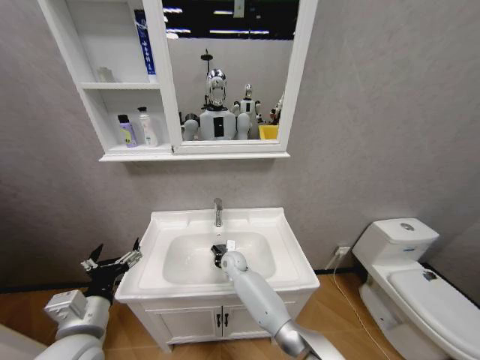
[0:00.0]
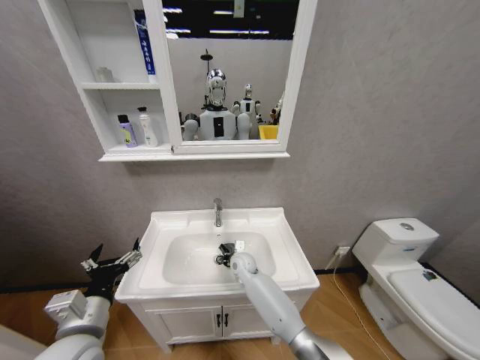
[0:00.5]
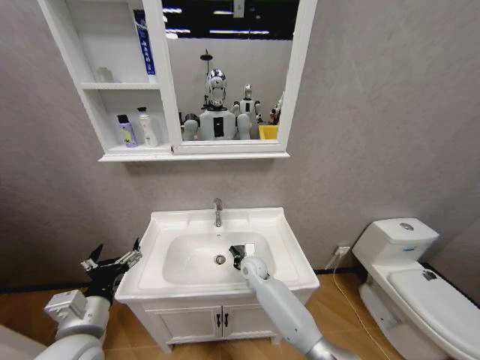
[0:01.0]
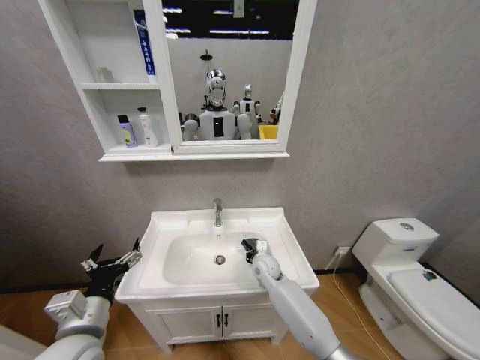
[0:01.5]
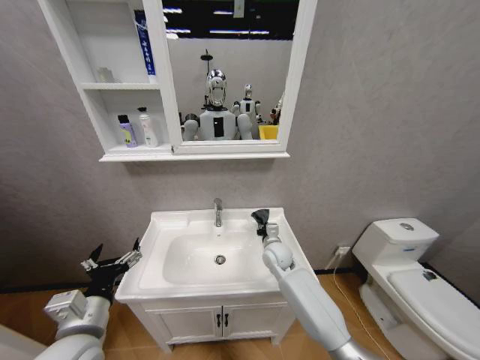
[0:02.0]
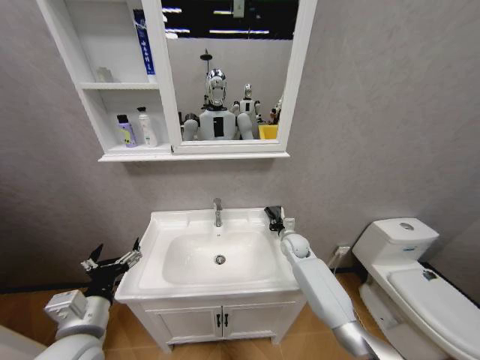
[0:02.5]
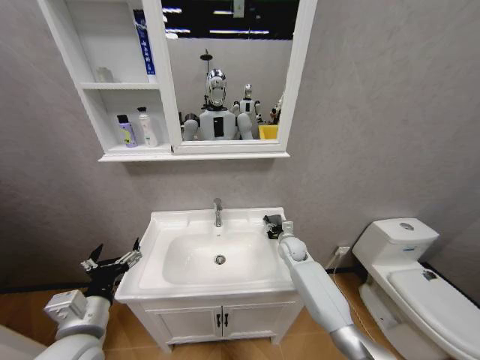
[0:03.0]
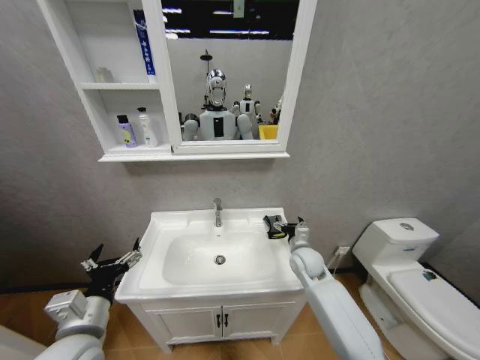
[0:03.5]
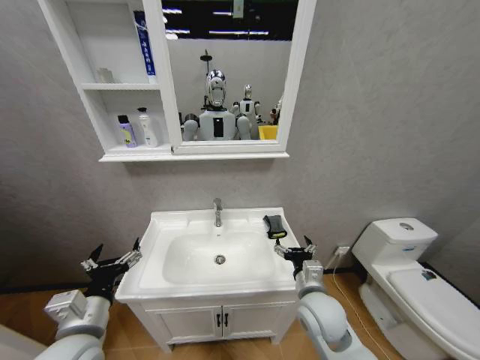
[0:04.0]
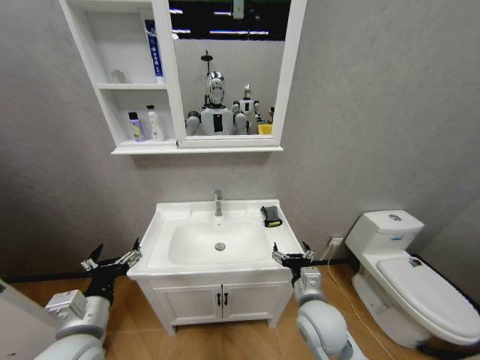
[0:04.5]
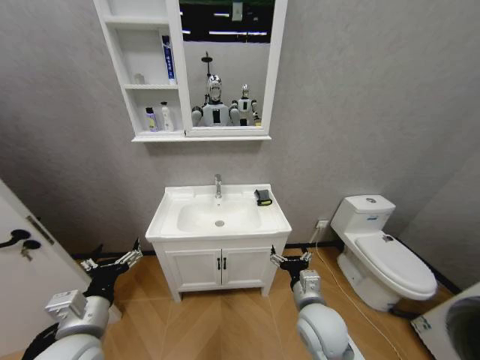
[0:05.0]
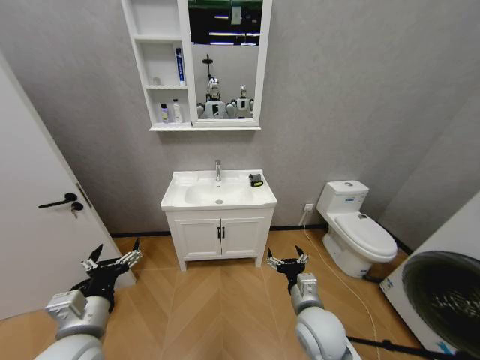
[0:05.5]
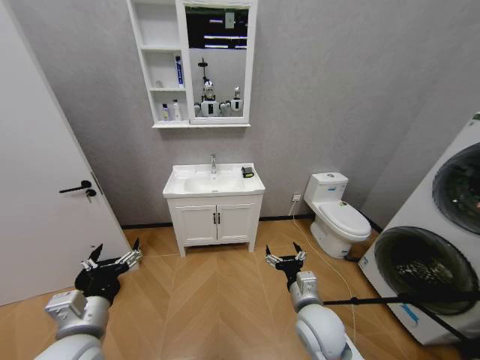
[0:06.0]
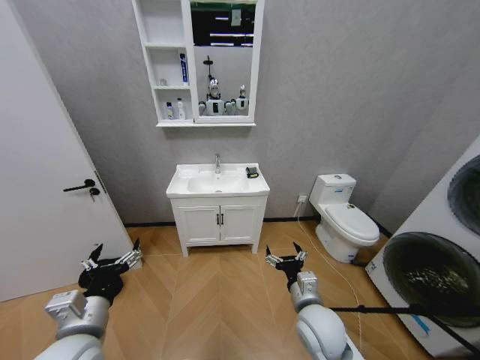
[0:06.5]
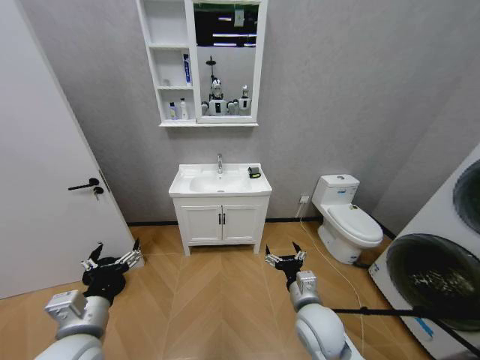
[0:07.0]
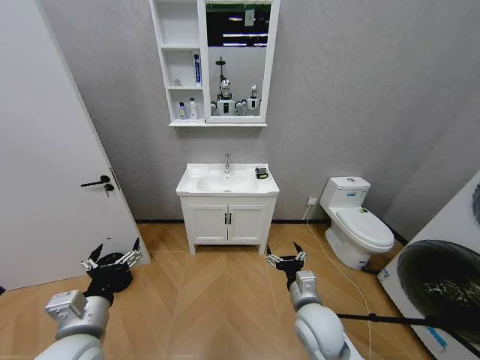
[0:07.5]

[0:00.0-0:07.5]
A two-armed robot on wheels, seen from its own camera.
Task of the whole recording: Move facial cleanser and shampoo from washbasin to cabinet, then wipe washbasin with towel.
0:00.0 to 0:02.0: The right gripper shifts some 15 cm to the right and upward.
0:02.0 to 0:04.0: The right gripper goes some 20 cm backward, and opens up.

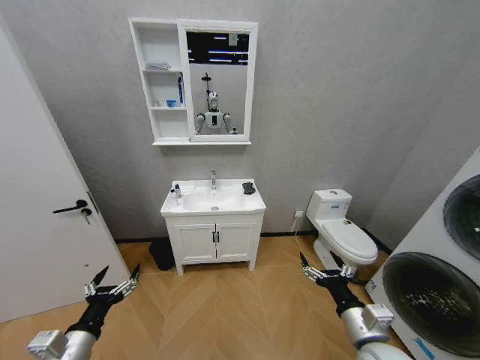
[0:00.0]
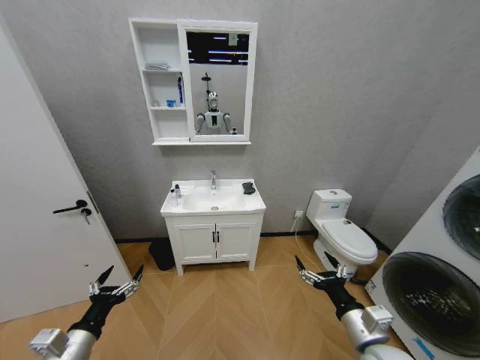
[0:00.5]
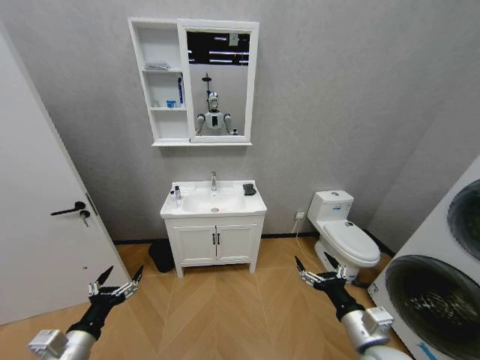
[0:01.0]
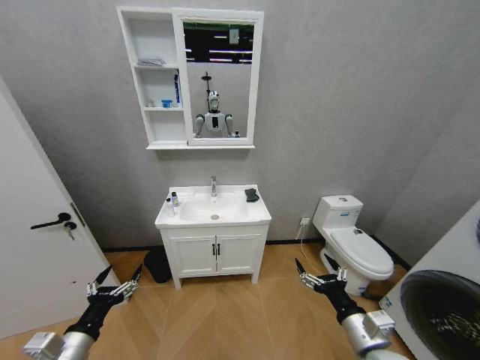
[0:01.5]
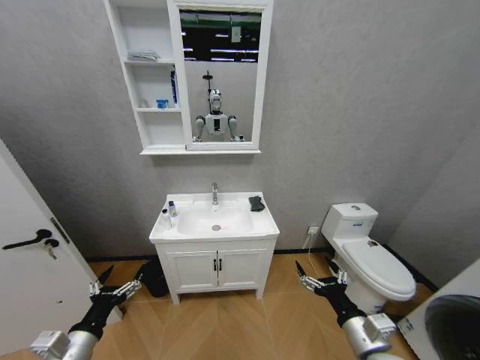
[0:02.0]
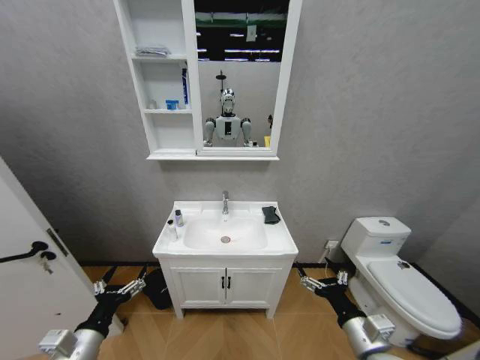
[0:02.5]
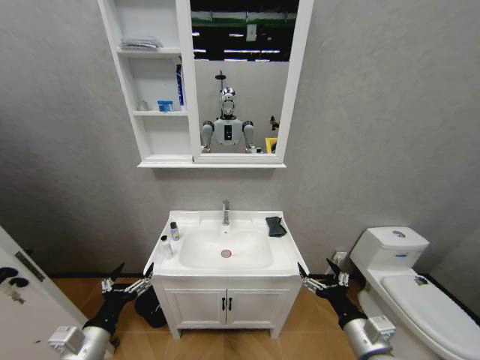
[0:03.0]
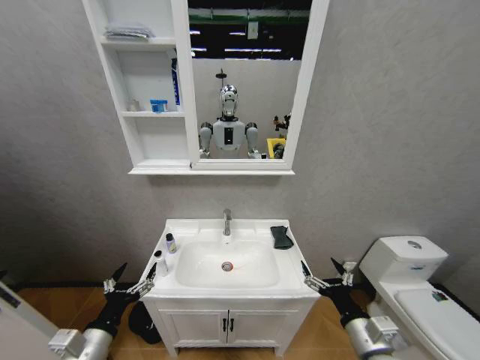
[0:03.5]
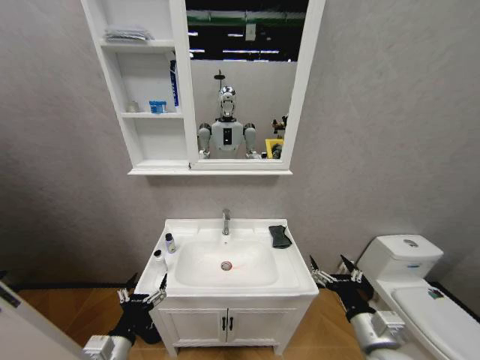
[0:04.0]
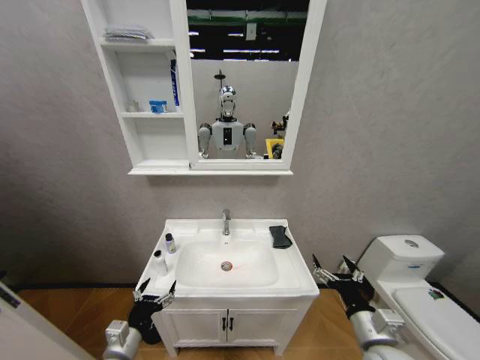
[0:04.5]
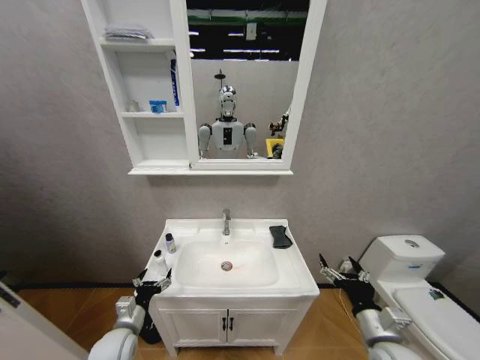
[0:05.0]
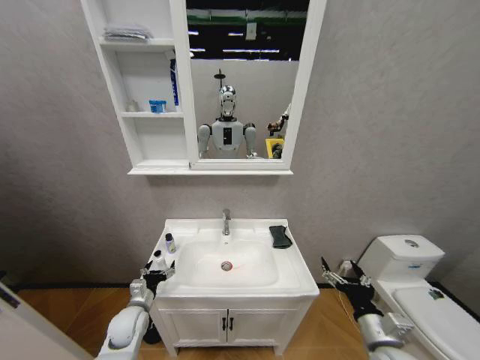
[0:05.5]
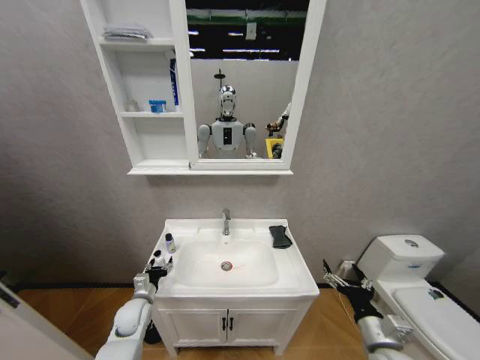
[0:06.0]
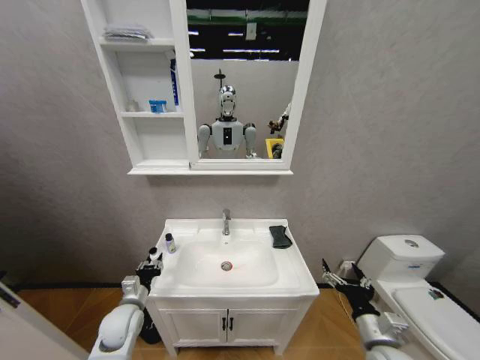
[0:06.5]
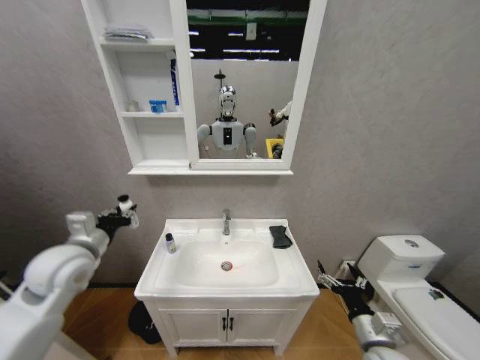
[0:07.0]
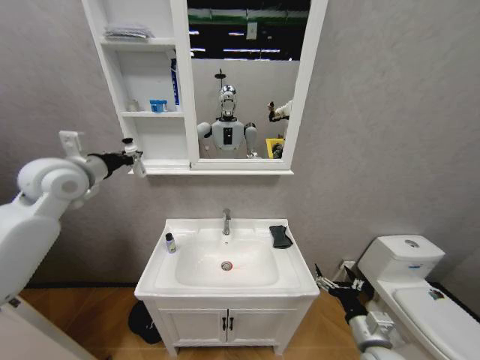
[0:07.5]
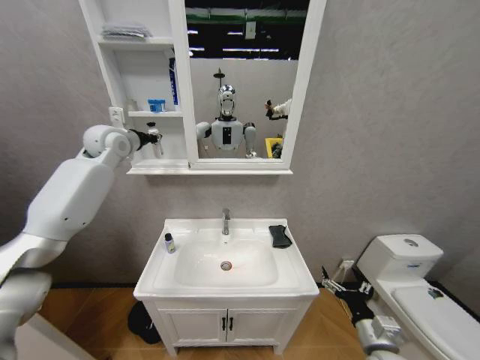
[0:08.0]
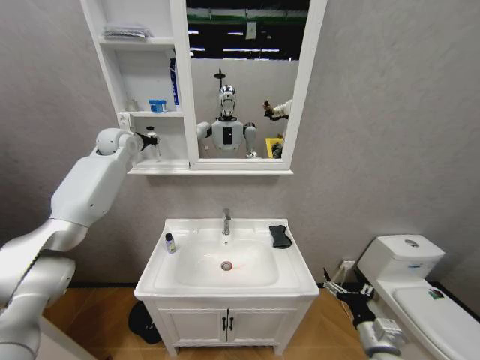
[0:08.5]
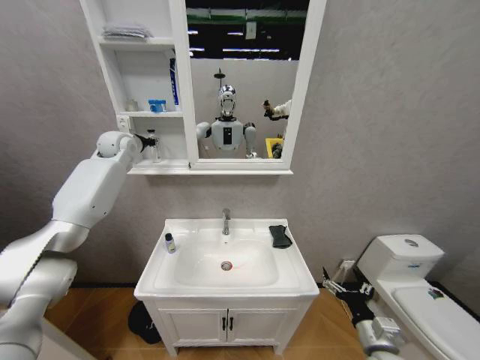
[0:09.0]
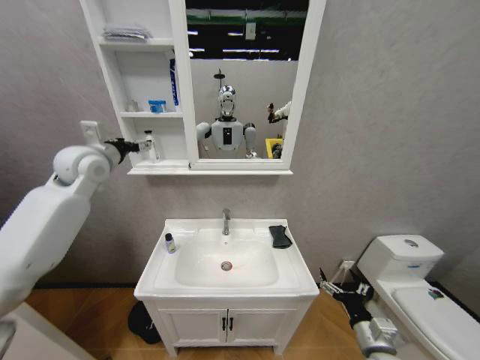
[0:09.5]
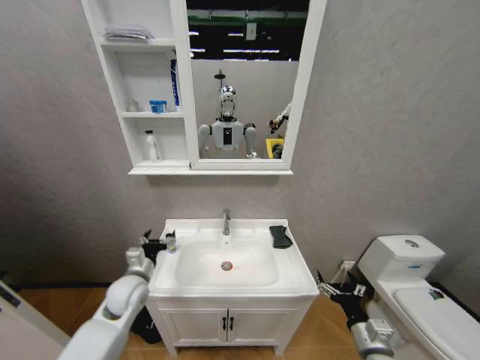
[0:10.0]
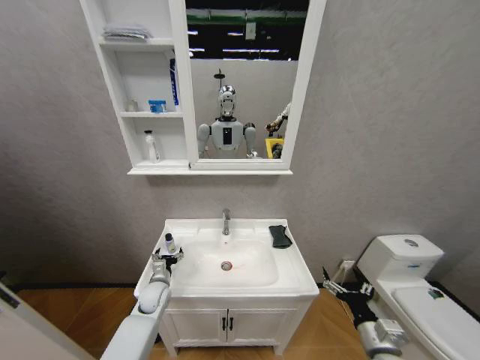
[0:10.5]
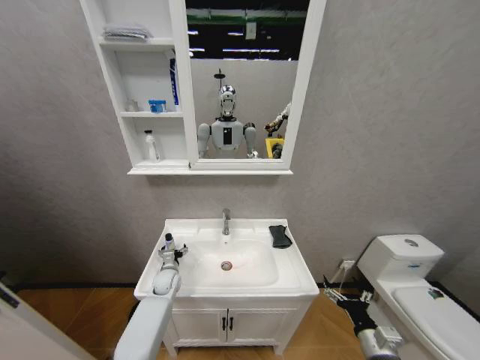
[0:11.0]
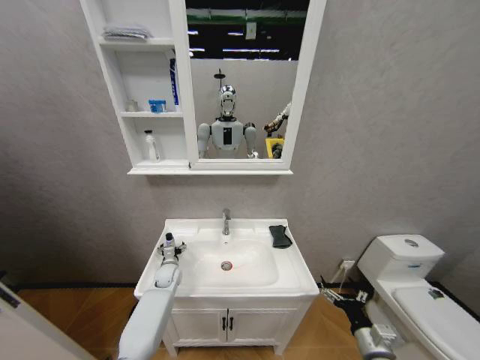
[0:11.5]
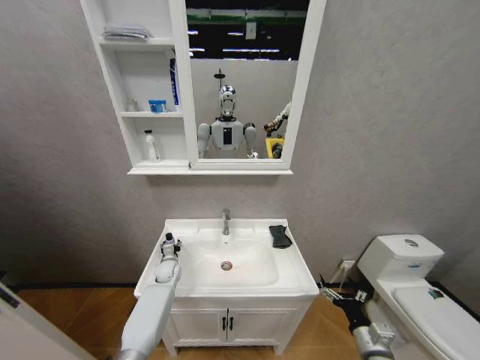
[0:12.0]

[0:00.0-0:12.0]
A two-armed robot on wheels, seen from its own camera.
Task of the whole recording: Move facial cleanser and shampoo from washbasin to cabinet, then wipe washbasin with towel.
0:02.0 to 0:04.0: The left gripper goes roughly 5 cm to the right.
0:04.0 to 0:06.0: The right gripper moves downward, some 5 cm. Meanwhile the left gripper heads forward, covering approximately 20 cm.
0:06.0 to 0:08.0: The left gripper is displaced upward by some 50 cm, and closes up.
0:08.0 to 0:10.0: The left gripper goes approximately 40 cm downward and backward, and opens.
0:10.0 to 0:12.0: The left gripper moves forward and downward, some 20 cm, and closes its fingers.

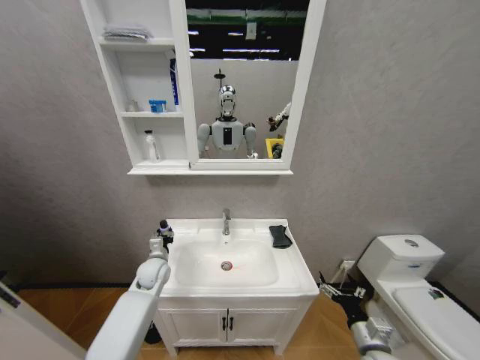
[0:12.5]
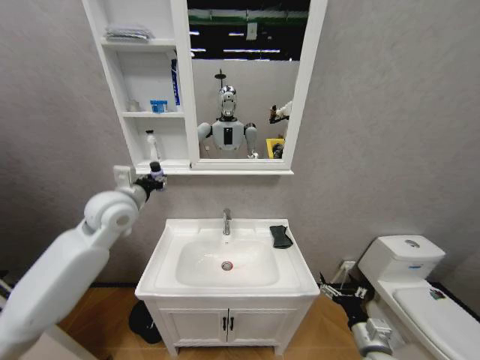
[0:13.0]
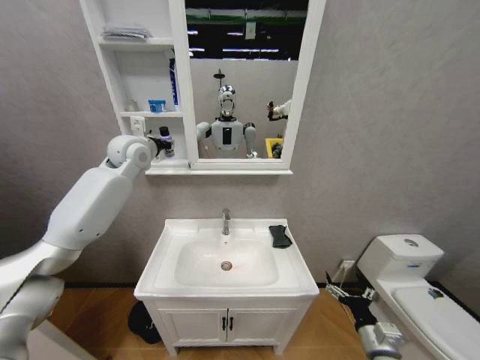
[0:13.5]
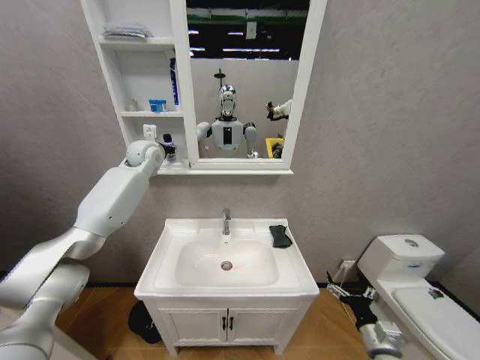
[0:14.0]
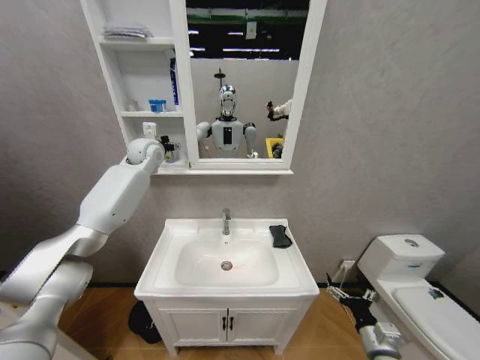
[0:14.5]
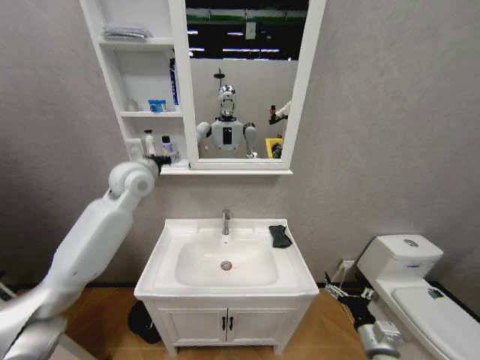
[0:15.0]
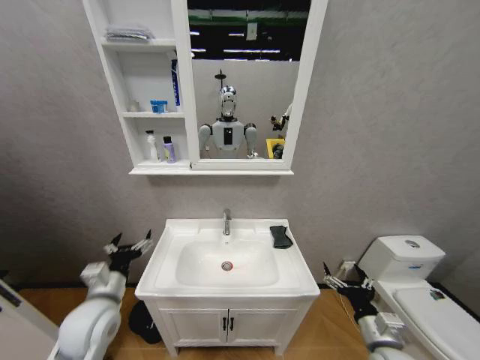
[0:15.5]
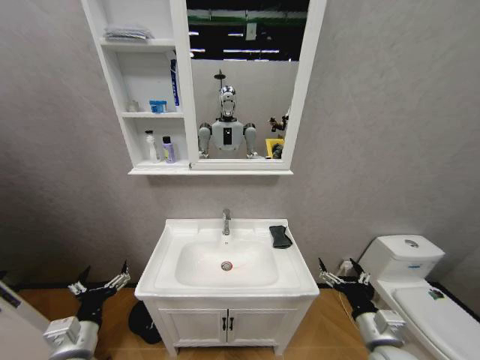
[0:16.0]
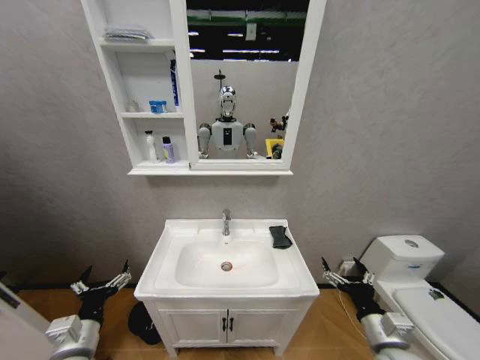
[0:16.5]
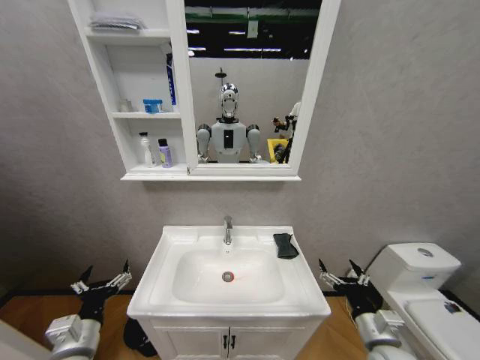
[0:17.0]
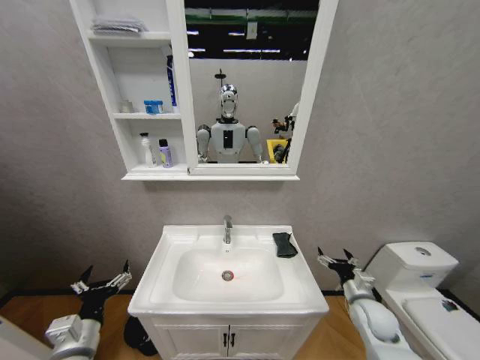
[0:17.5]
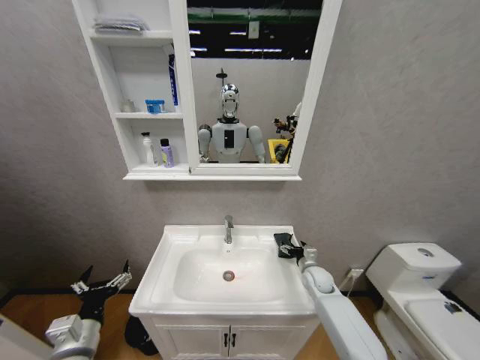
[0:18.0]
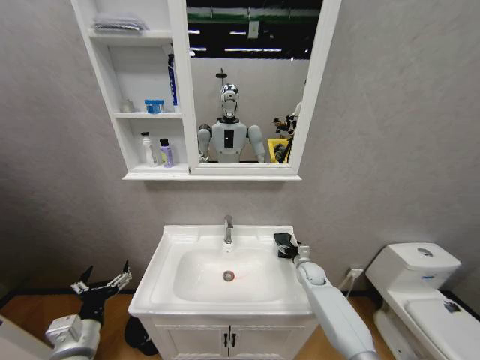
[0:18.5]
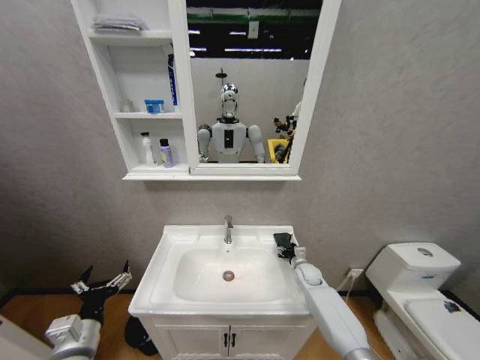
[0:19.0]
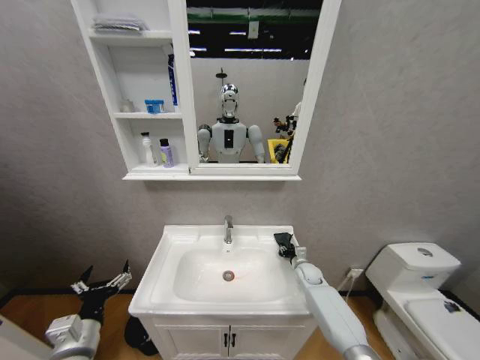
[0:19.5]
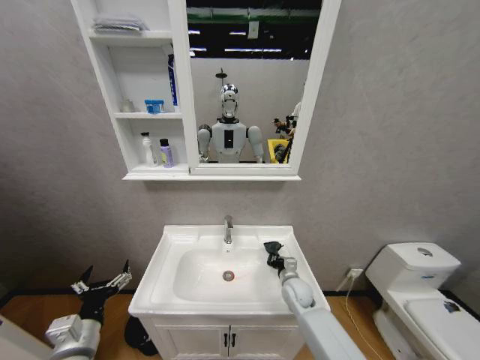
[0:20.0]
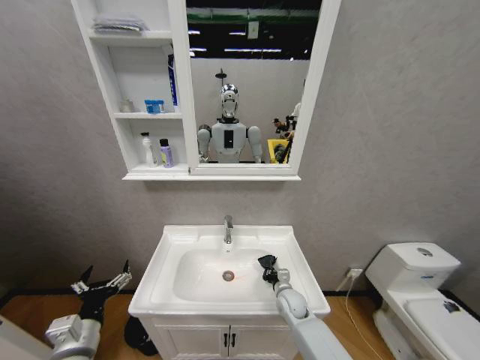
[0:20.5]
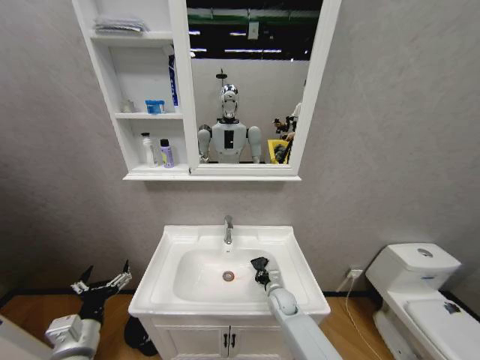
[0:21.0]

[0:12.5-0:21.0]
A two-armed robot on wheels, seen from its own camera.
Task of the whole recording: Move facial cleanser and shampoo from washbasin to cabinet, then wipe washbasin with towel.
0:12.5 to 0:14.5: The left gripper moves upward, about 35 cm, and opens up.
0:14.5 to 0:16.5: The left gripper travels backward and downward by about 50 cm; the right gripper moves upward, some 10 cm.
0:16.5 to 0:19.0: The right gripper goes some 30 cm forward.
0:19.0 to 0:21.0: The right gripper travels to the left, backward and downward by approximately 15 cm, and closes up.
